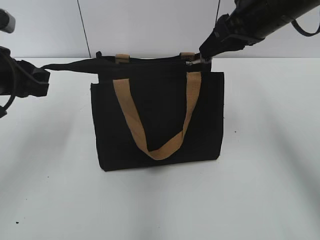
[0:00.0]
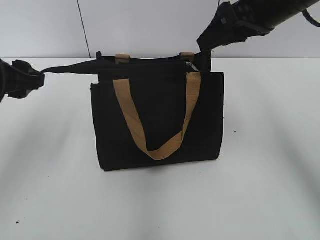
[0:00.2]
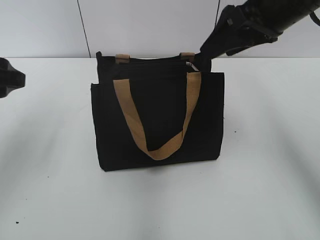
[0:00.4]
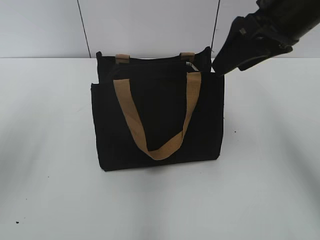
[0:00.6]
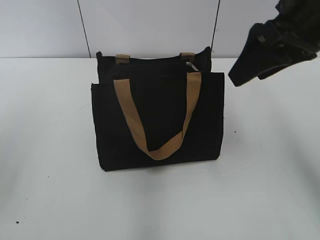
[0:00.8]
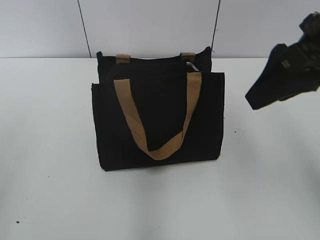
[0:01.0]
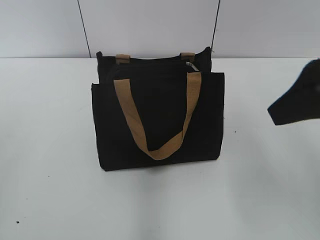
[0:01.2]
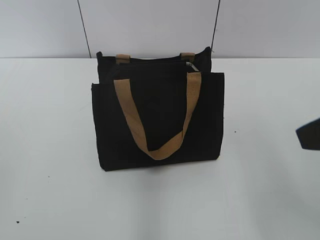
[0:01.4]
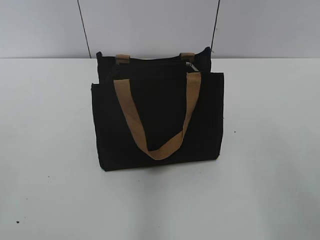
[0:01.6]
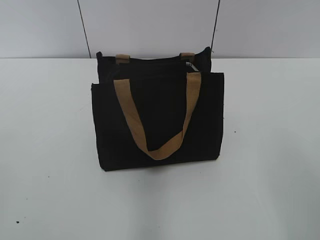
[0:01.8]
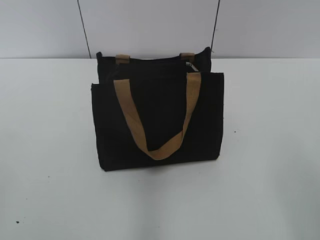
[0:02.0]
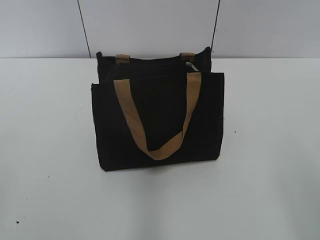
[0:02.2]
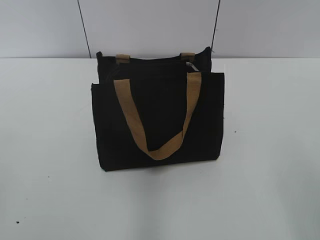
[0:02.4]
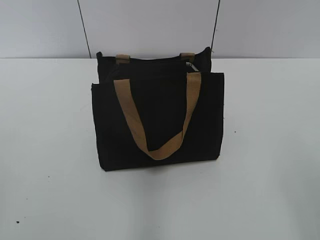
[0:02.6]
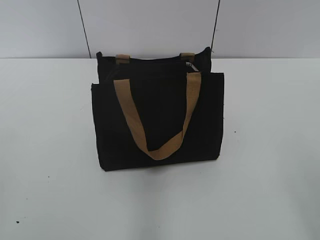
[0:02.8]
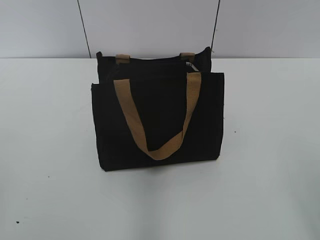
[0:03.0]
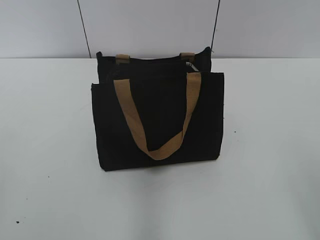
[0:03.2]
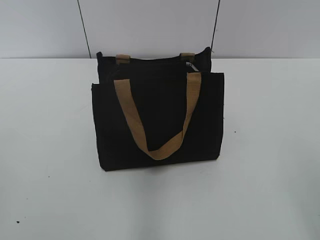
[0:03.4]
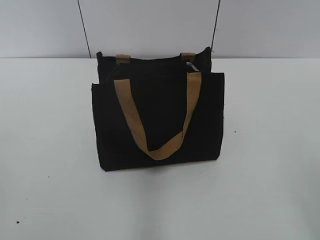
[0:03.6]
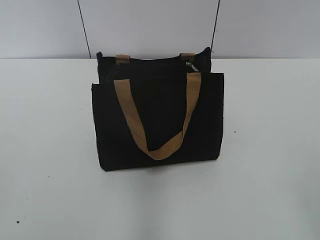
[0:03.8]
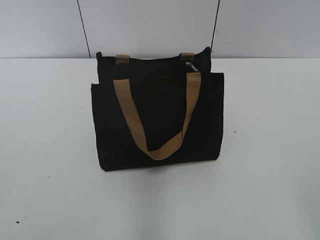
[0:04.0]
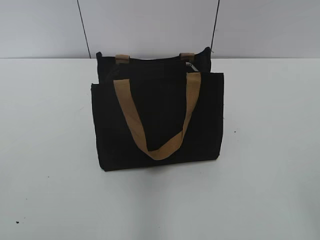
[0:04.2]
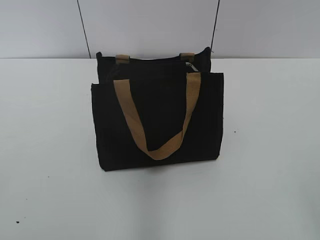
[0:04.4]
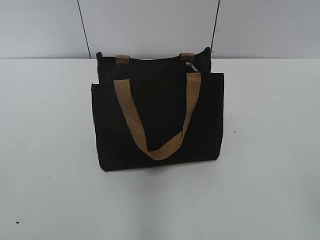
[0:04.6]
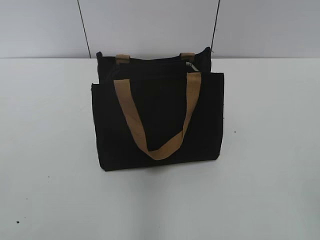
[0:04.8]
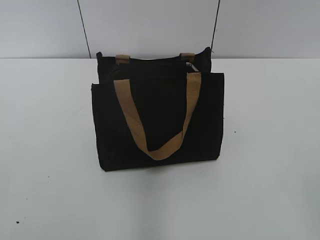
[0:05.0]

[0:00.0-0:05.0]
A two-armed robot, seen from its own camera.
0:00.0 to 0:01.6: The grippers both shift backward by approximately 25 cm. The right gripper opens its fingers. Meanwhile the left gripper opens up.

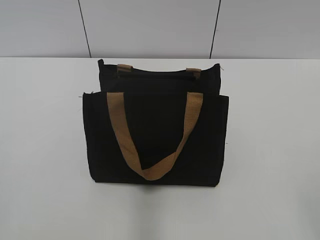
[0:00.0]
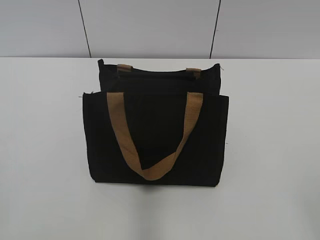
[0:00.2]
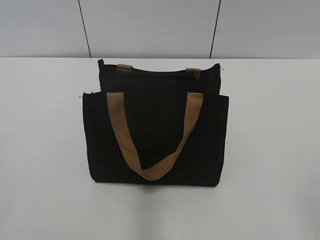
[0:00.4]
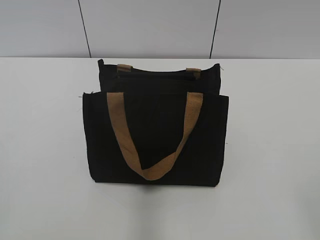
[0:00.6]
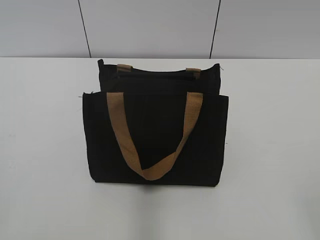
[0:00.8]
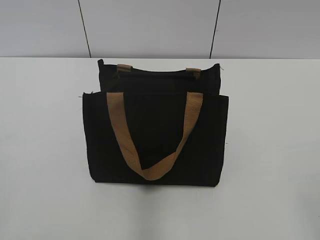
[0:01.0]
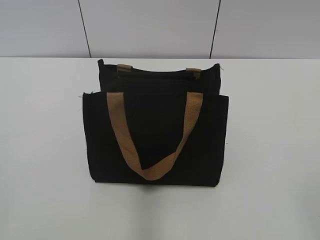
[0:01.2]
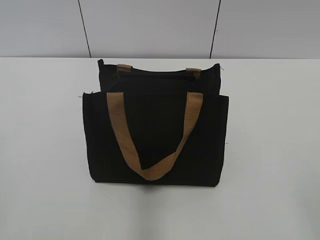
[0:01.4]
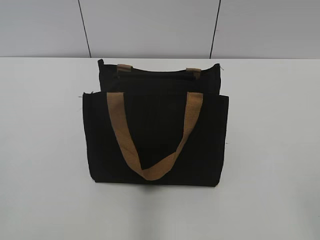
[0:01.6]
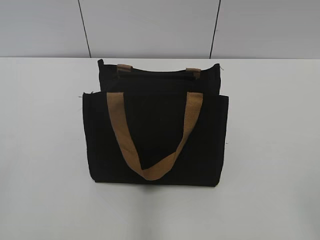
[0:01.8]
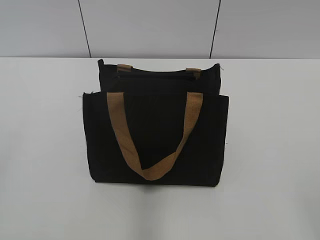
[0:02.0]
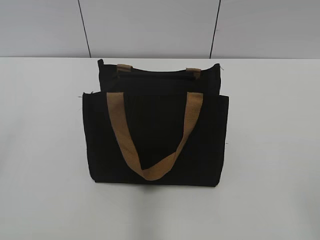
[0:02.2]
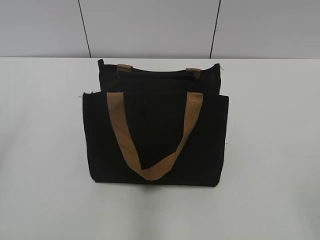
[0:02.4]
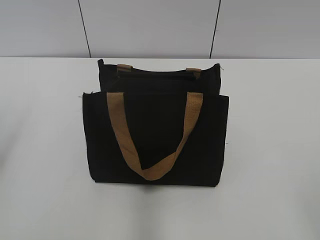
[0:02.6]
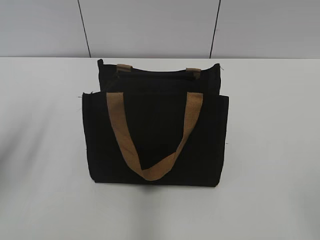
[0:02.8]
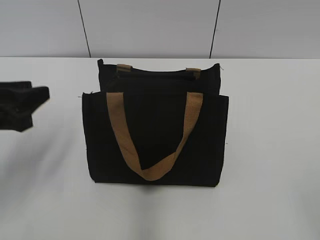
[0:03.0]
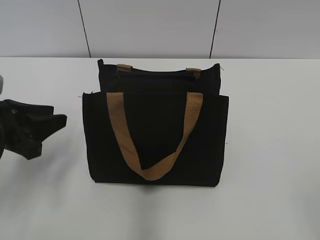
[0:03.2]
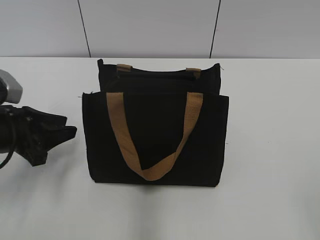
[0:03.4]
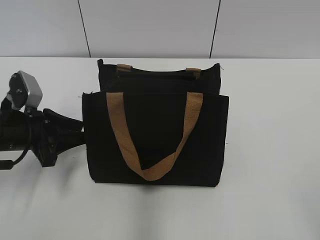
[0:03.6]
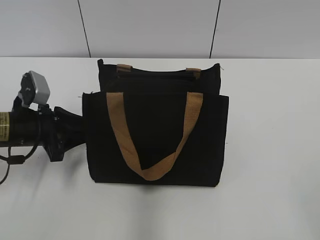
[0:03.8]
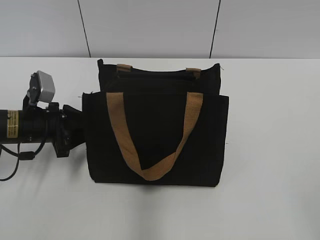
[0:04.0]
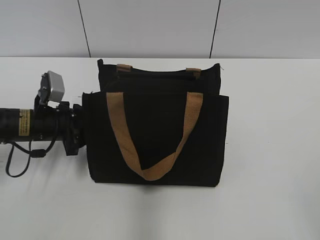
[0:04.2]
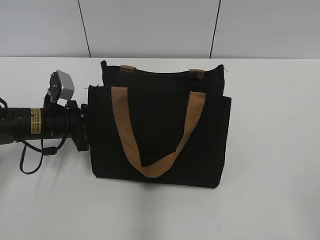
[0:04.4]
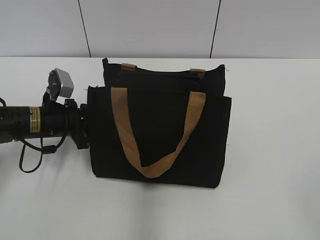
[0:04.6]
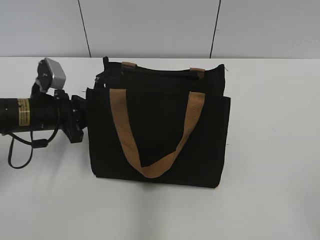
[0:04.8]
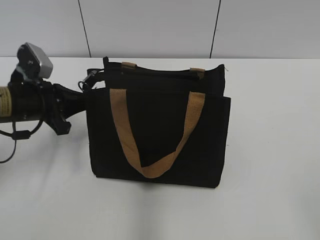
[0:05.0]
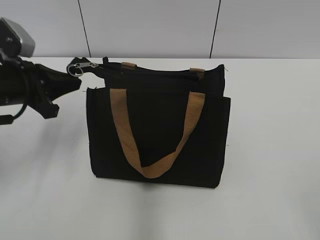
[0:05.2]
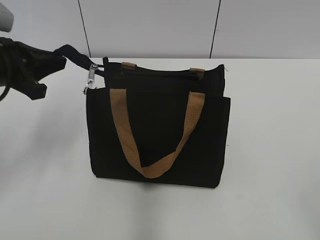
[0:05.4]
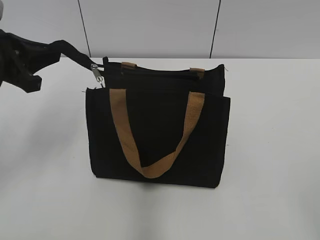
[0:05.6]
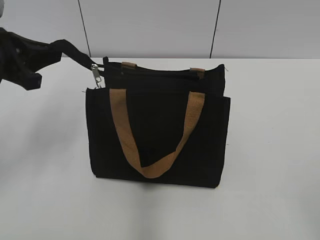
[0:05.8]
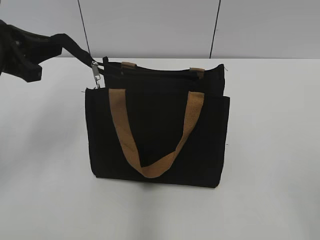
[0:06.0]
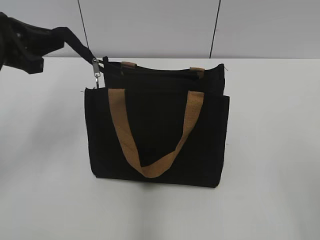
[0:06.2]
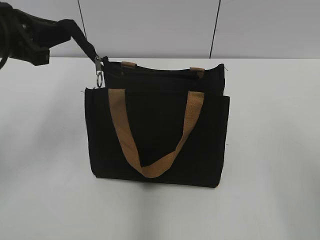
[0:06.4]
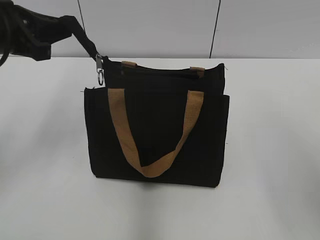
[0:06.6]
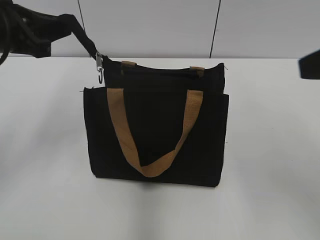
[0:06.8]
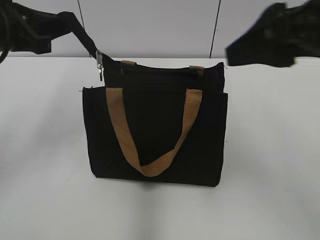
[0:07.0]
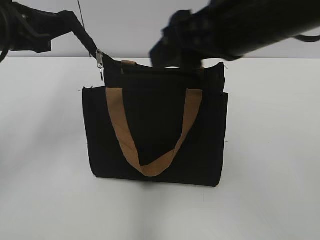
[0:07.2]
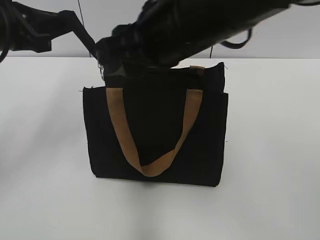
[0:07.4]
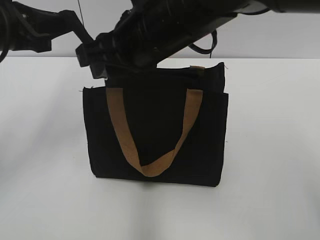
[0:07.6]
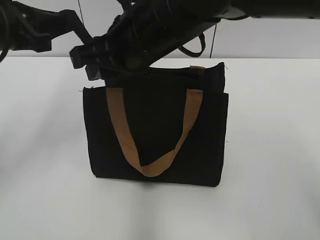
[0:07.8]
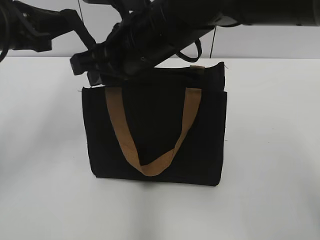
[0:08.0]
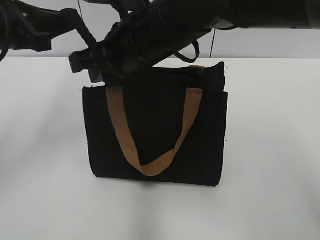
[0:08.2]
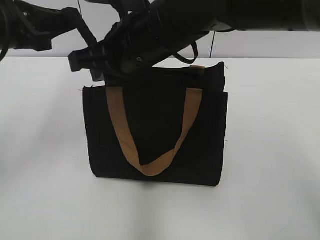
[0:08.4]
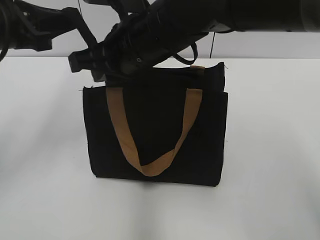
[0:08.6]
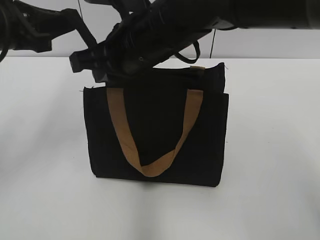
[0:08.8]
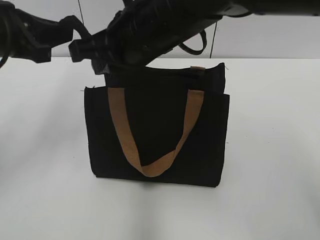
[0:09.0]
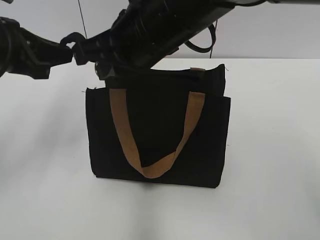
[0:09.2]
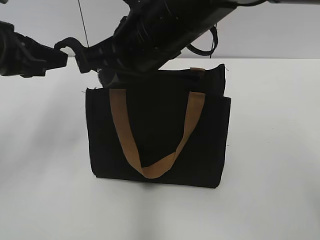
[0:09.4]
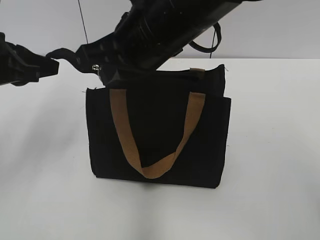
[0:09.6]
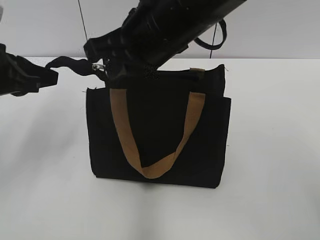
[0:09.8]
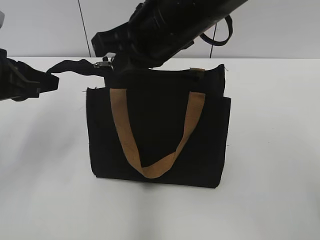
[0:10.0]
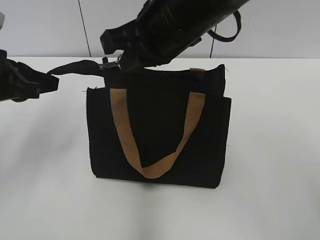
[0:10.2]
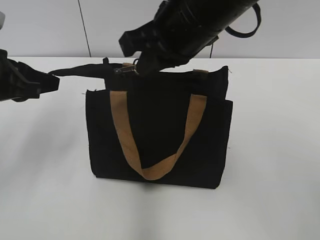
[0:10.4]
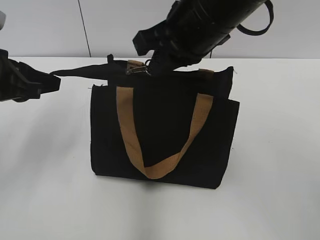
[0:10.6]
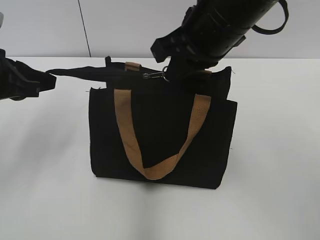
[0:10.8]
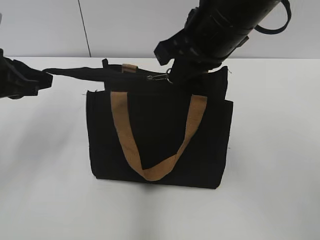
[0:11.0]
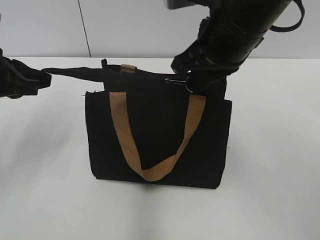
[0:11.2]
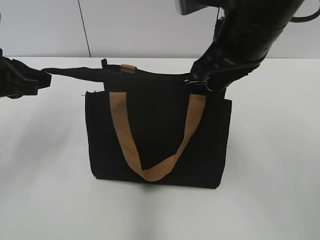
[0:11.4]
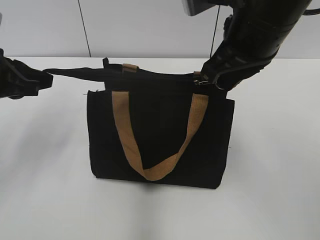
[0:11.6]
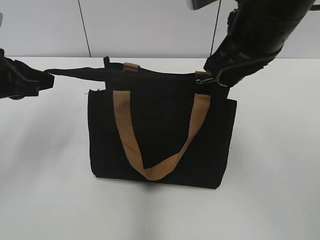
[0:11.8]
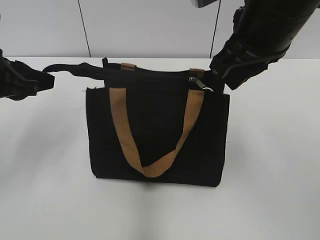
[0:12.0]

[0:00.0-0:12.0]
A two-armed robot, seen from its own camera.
Step, 0:00.0 to 0:11.8: Zip up the bag with your right hand.
0:01.6 to 0:03.0: The left gripper travels forward and downward by roughly 25 cm, and opens and closes again.
0:03.0 to 0:04.4: The left gripper moves forward, downward and to the right, about 15 cm.
0:04.4 to 0:06.0: The left gripper shifts some 15 cm upward.
0:06.0 to 0:07.6: The right gripper shifts some 40 cm to the left and forward, and closes up.
0:07.6 to 0:09.0: The right gripper closes.
0:09.0 to 0:10.4: The right gripper shifts roughly 5 cm to the right.
0:10.4 to 0:12.0: The right gripper travels to the right by about 5 cm, and opens up. The left gripper opens up.

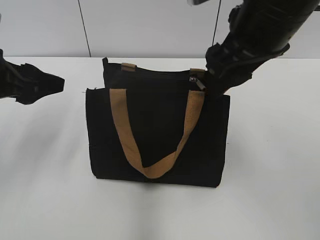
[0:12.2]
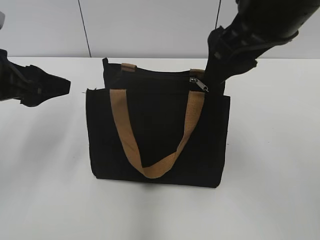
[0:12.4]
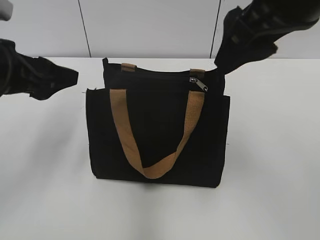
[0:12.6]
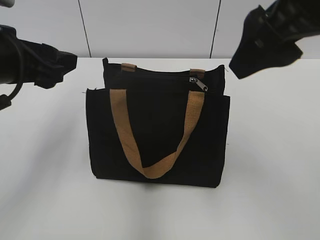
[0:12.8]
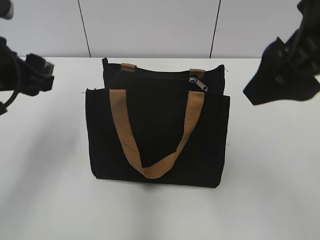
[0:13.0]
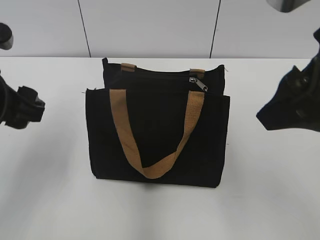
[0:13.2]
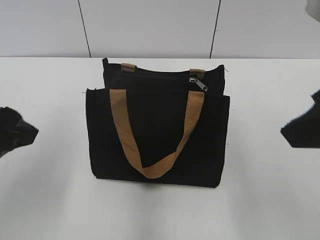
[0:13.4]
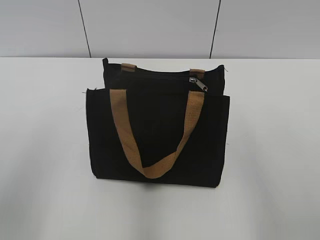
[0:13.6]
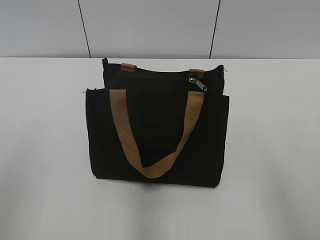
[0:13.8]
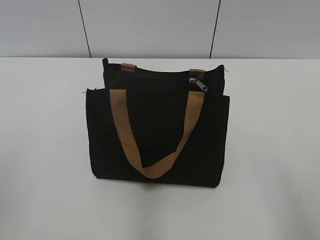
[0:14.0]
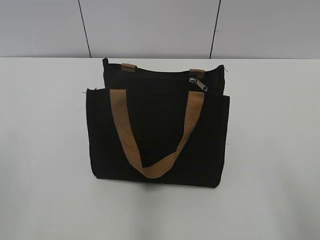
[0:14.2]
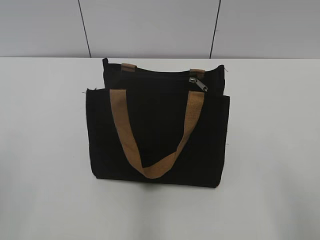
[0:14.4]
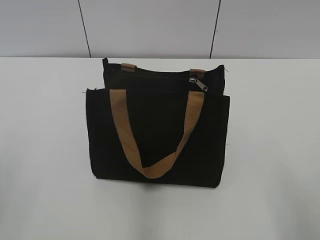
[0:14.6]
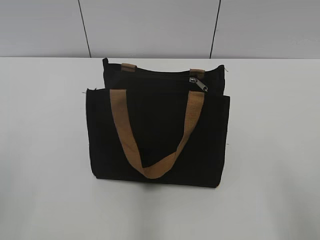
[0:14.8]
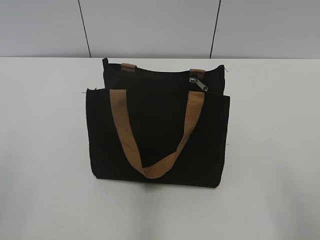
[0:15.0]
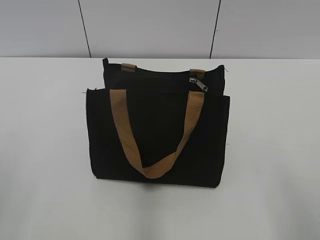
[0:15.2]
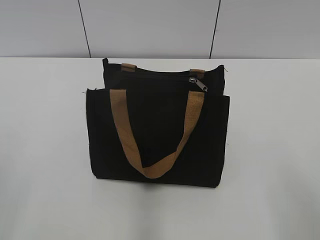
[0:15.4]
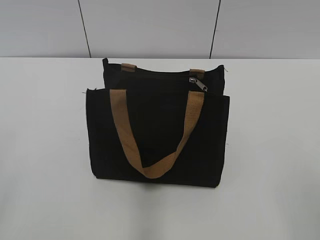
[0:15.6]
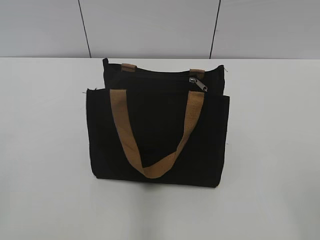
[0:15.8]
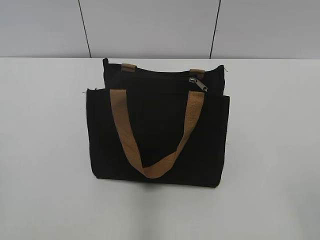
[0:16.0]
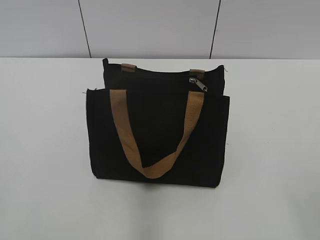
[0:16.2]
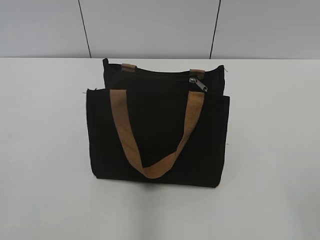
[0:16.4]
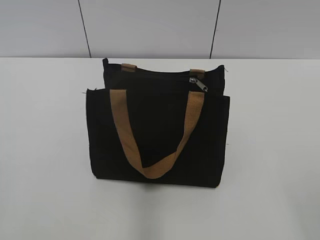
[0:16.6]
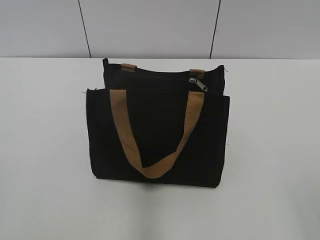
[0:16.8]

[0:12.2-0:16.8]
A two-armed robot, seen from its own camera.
0:12.2 to 0:13.8: The left gripper heads backward, covering approximately 20 cm. The right gripper shifts about 25 cm backward and to the right.
